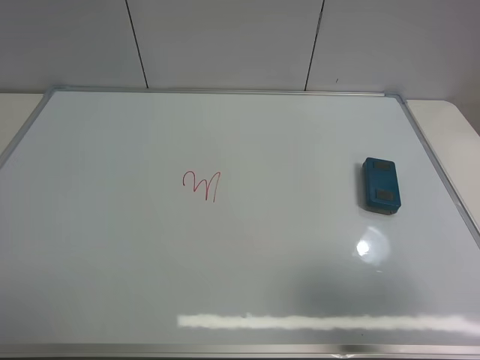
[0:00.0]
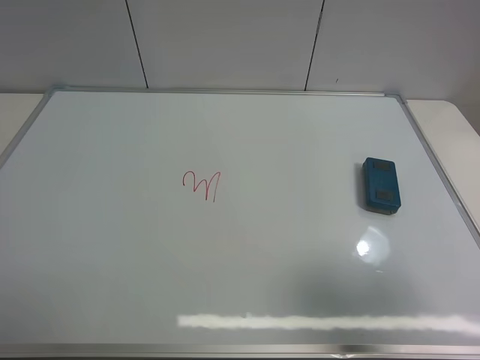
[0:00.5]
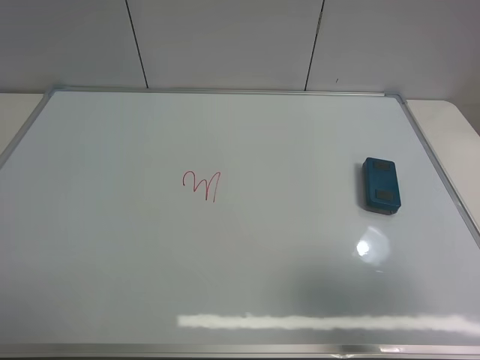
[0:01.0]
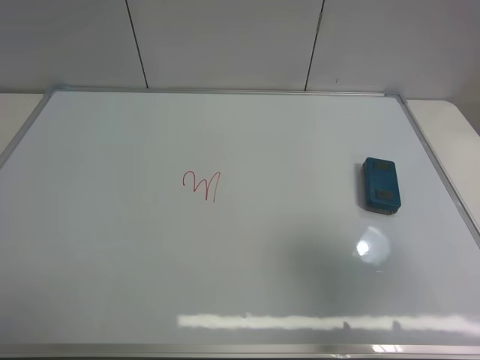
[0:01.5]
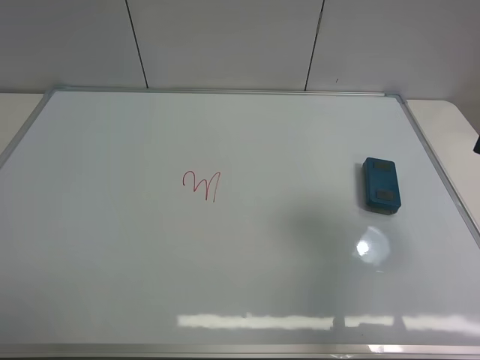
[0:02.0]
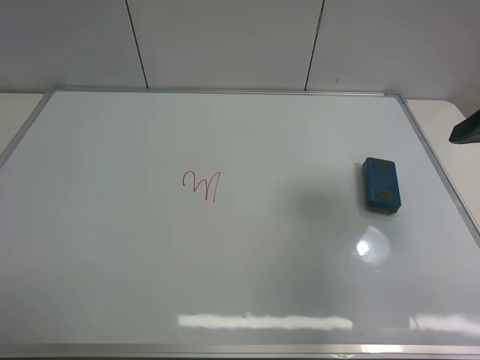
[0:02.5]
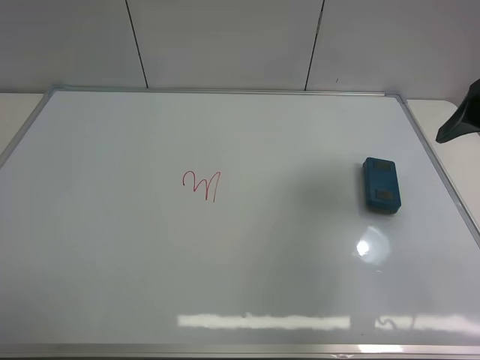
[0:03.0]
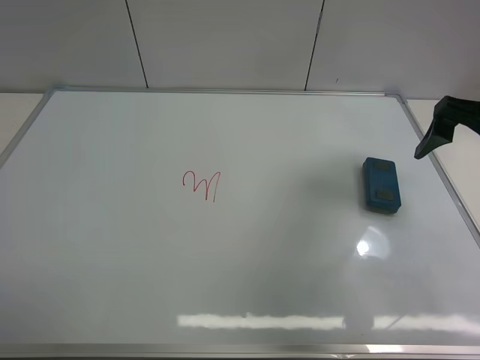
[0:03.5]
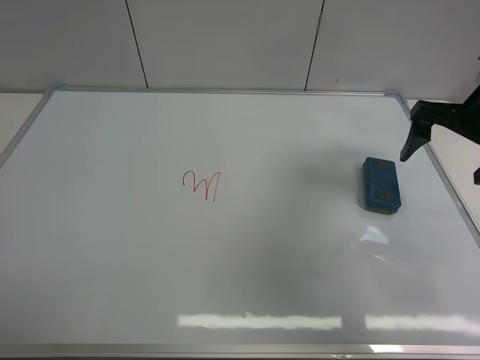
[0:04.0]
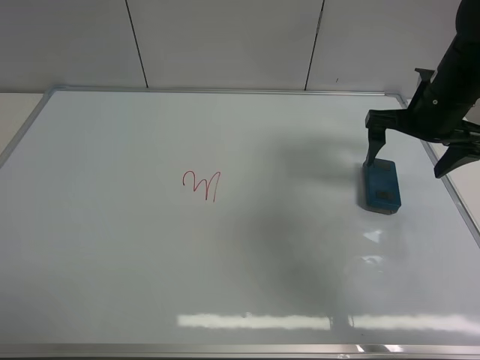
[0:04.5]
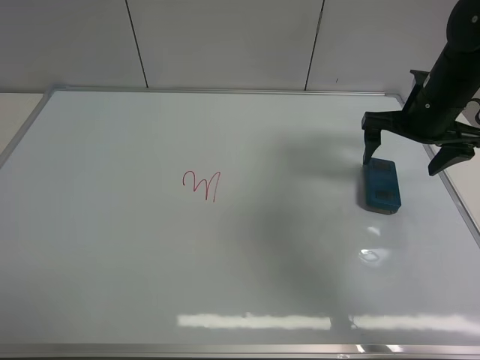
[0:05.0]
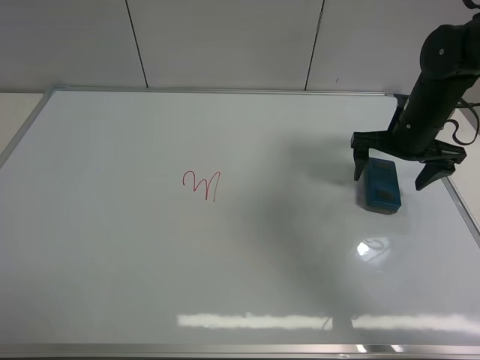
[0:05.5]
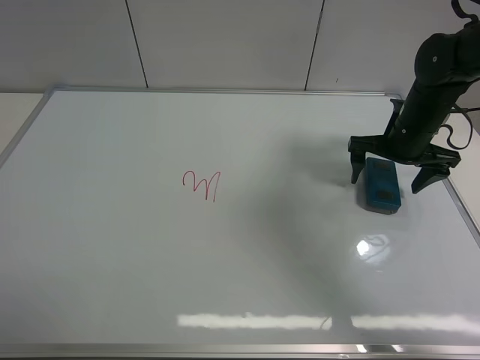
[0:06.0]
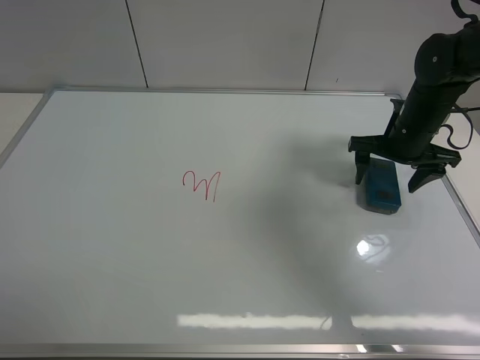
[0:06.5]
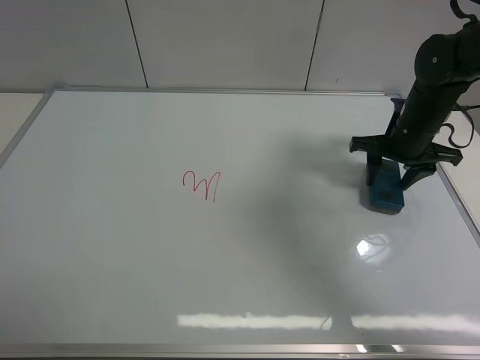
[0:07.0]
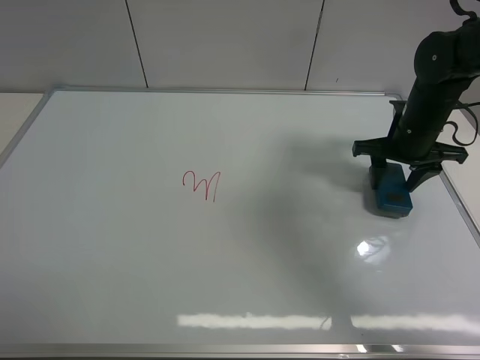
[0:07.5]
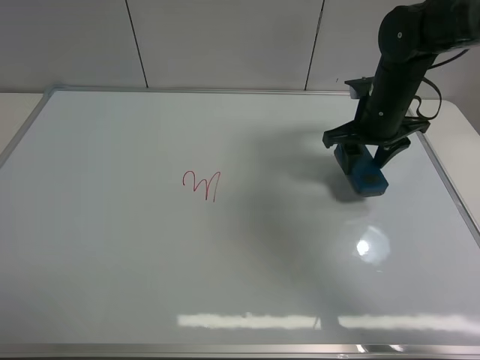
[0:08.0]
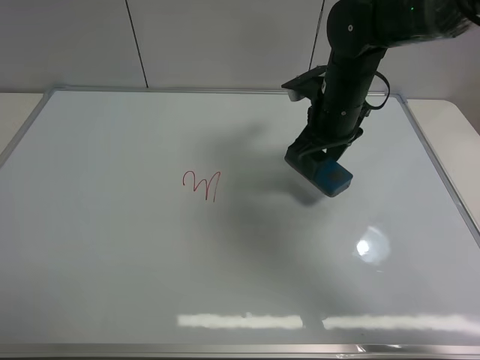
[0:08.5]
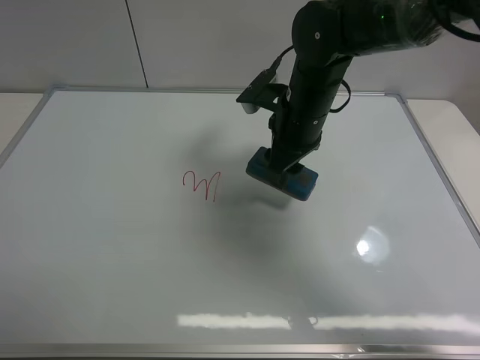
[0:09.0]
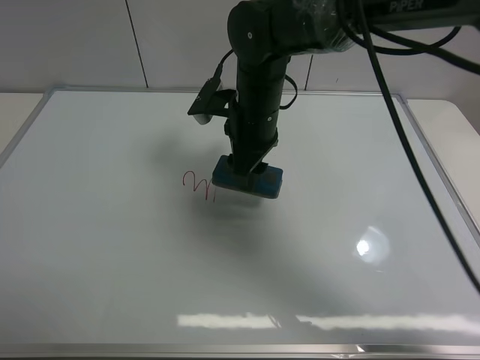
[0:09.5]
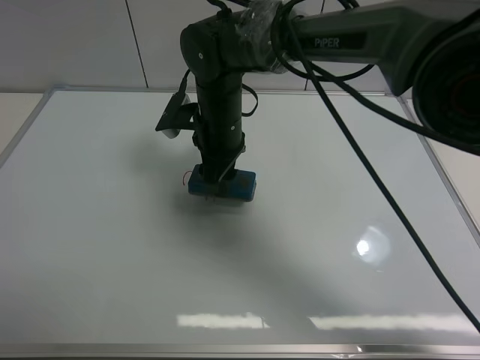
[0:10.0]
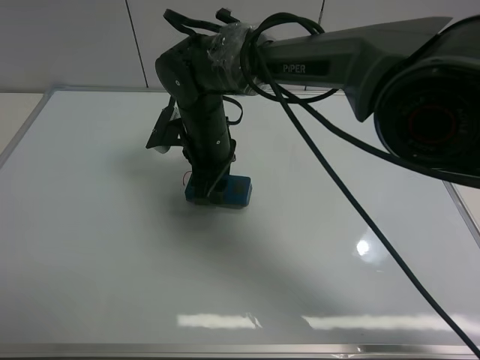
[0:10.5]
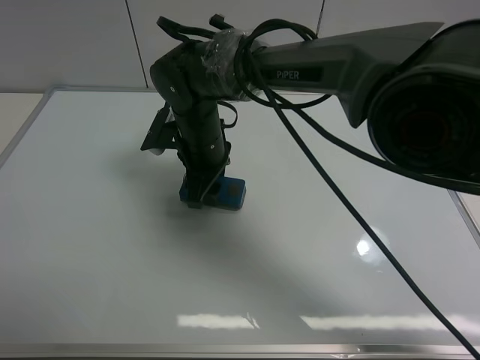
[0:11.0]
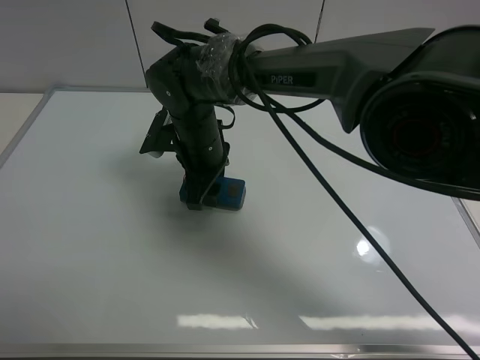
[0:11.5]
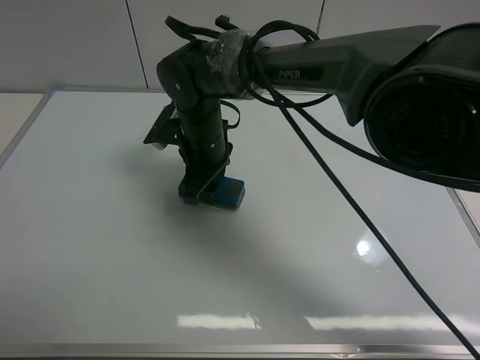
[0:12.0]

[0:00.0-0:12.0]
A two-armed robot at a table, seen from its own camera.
Task of the whole recording: use the right gripper to pick up the board eraser, wipe the notes on the whiteboard clean, and then put them back in place.
Step, 0:00.0 to 0:08.0: Pick up the board eraser with right gripper.
0:00.0 to 0:02.0: The right gripper is displaced forward by approximately 10 cm.
0:02.0 to 0:04.0: The right gripper shifts some 15 cm forward.
0:04.0 to 0:06.0: The right gripper travels downward and forward by some 10 cm.
0:06.0 to 0:08.0: The right gripper moves to the left, approximately 5 cm, and closes up.
0:08.0 to 0:10.0: The right gripper moves to the left, about 25 cm.

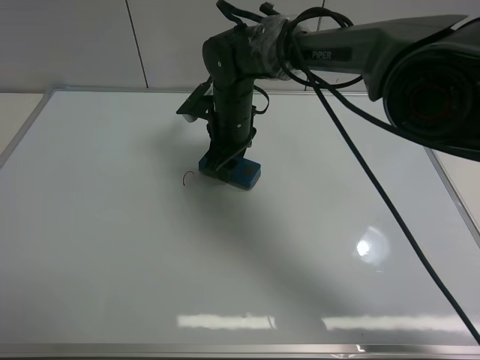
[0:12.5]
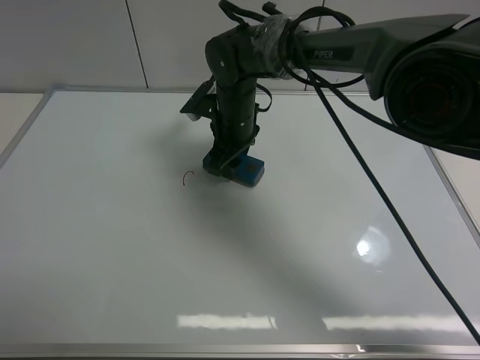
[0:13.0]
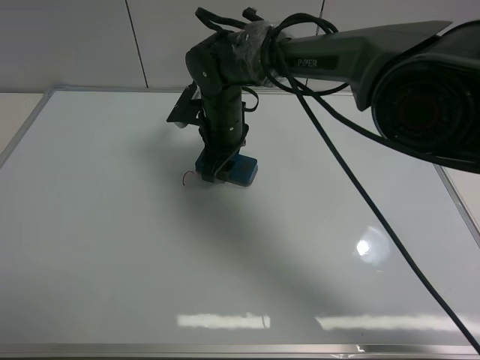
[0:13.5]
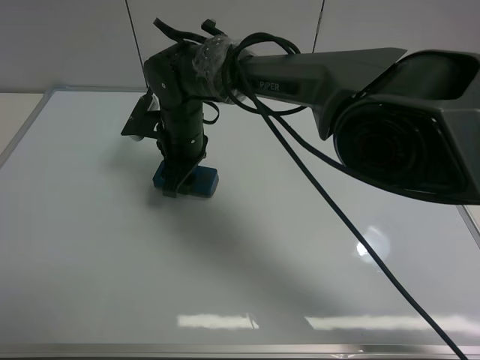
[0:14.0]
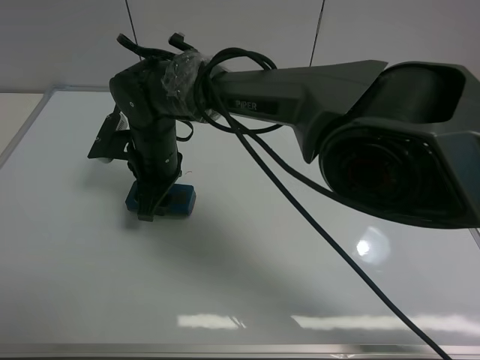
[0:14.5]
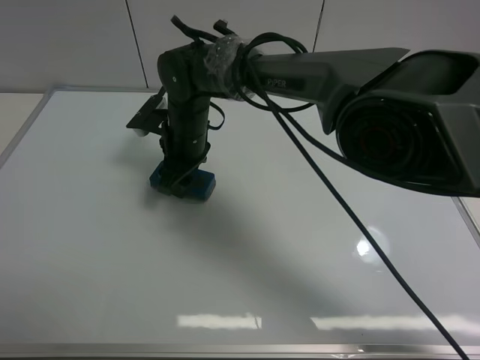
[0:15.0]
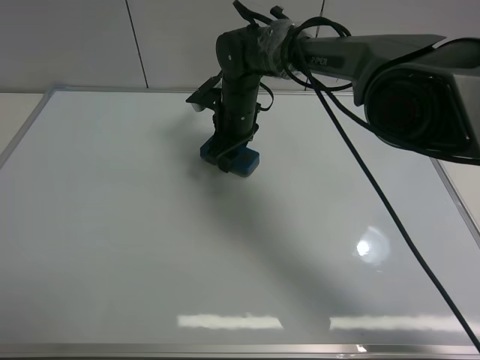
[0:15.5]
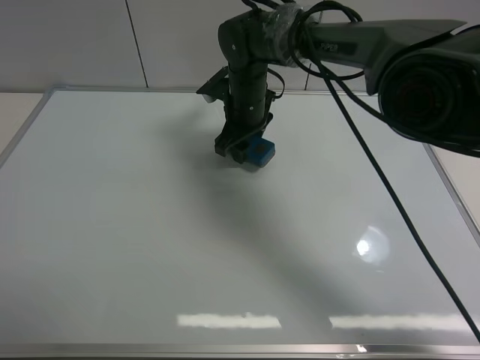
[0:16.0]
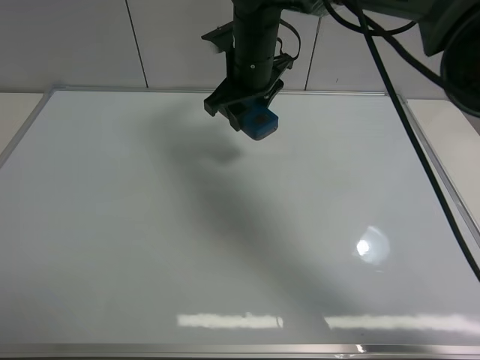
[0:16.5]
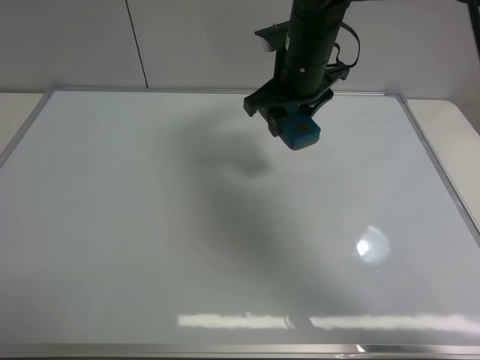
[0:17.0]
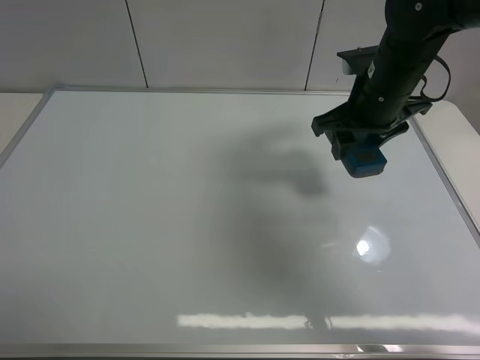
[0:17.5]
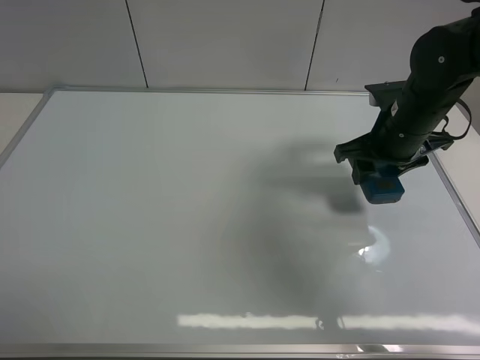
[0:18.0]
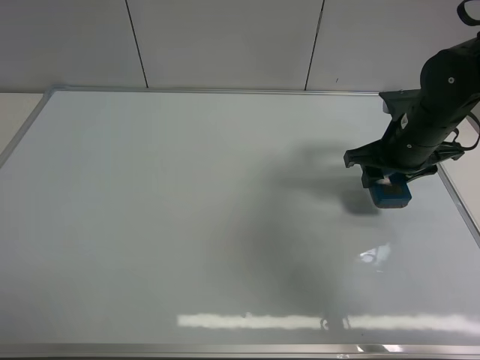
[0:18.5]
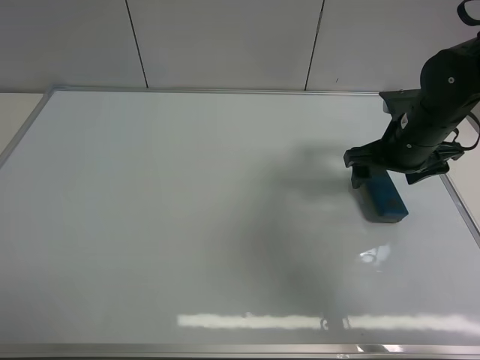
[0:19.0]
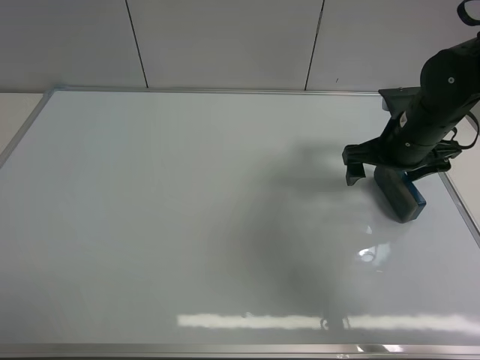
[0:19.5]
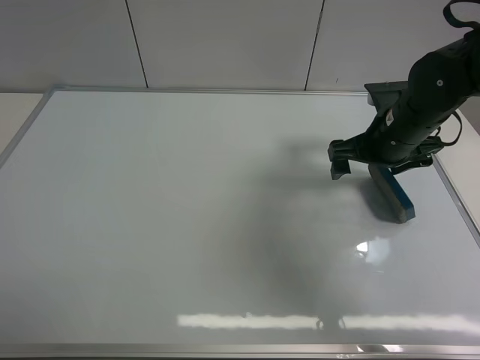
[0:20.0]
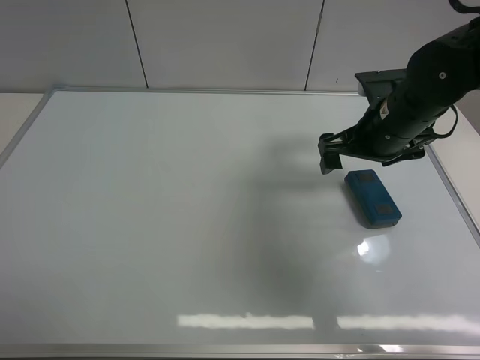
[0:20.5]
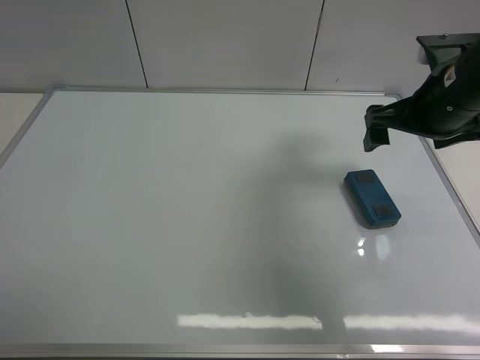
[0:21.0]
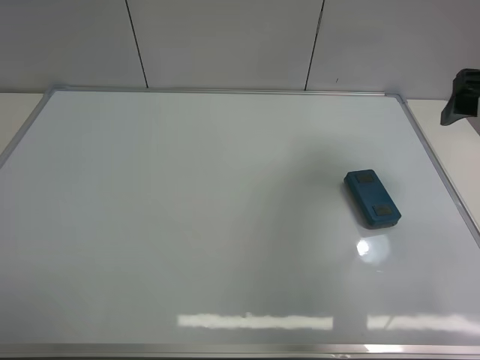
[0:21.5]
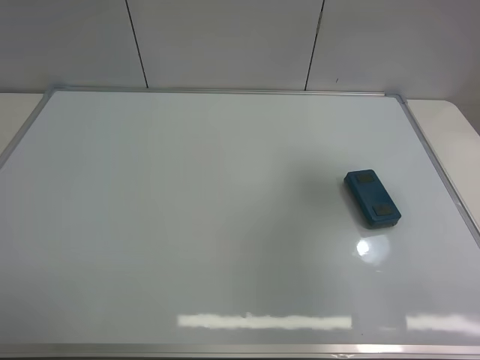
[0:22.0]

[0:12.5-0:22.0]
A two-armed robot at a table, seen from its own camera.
Task of the whole recording: use the right gripper to pick up the board eraser, wipe the notes on the whiteboard clean, and then put them back in place.
Step, 0:12.5 to 0:15.5: Wipe off the writing on the board with right gripper.
Step, 0:16.0 to 0:20.0: Place the board eraser on the right side of board with right gripper.
0:12.5 to 0:14.5: The right gripper goes approximately 15 cm to the left and backward.
0:14.5 to 0:16.5: The right gripper goes approximately 20 cm to the right, upward and forward.
0:16.5 to 0:18.0: The right gripper goes about 20 cm to the right and backward.
0:18.0 to 0:20.0: The right gripper opens.
0:20.0 to 0:22.0: The right gripper shifts some 25 cm upward, backward and to the right.

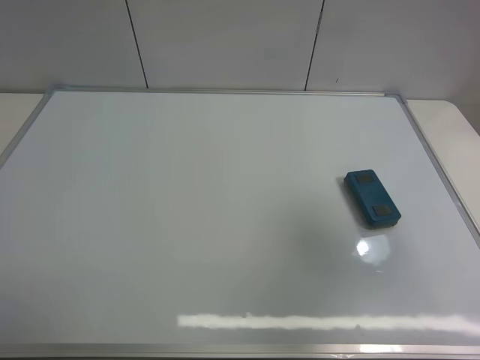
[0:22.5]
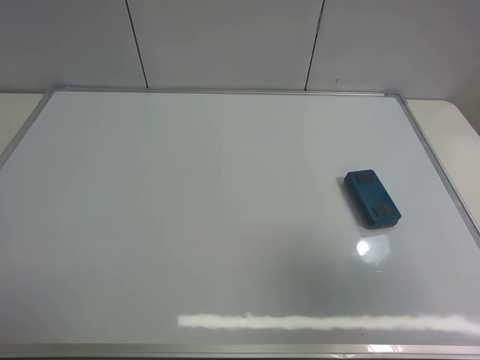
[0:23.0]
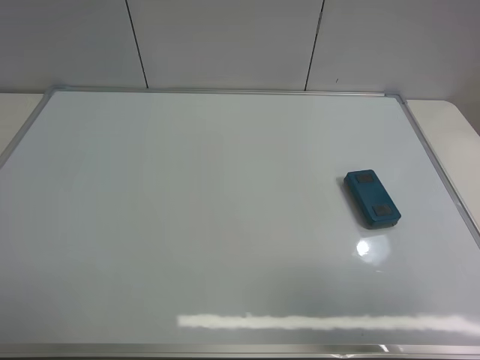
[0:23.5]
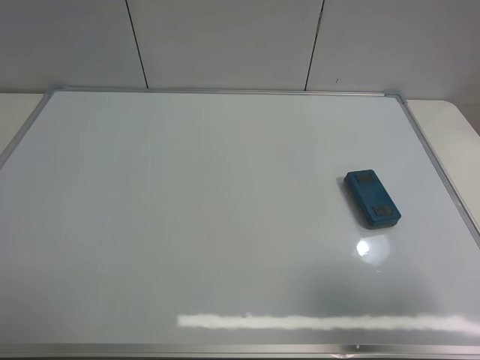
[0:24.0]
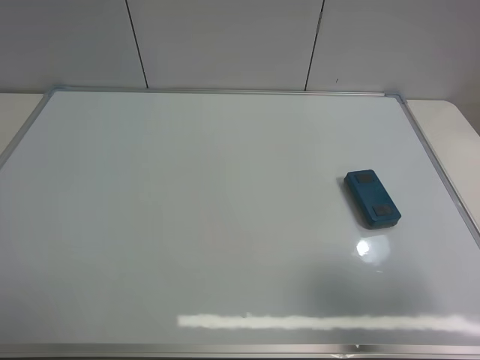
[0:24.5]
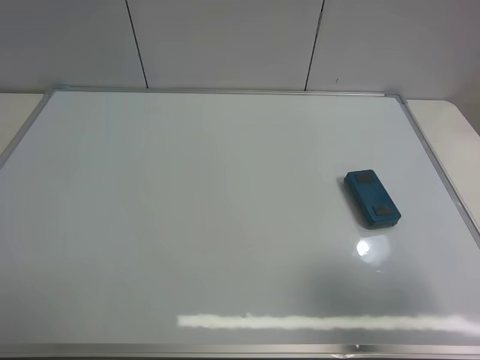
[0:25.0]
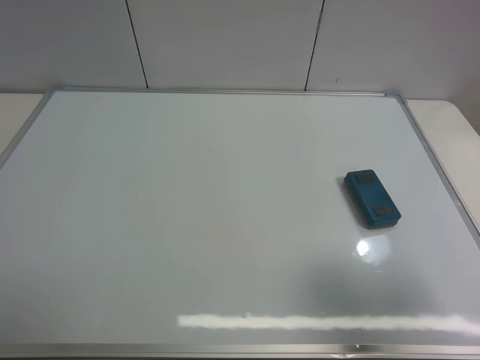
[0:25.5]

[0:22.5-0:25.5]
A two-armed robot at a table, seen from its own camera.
Task of the whole recording: use the right gripper to pick up the board eraser, wipe the notes on the whiteboard clean, and then put them back in place.
0:22.5 to 0:24.0: The right gripper moves downward and backward, about 10 cm.
0:24.0 to 0:25.5: The two grippers keep their place.
